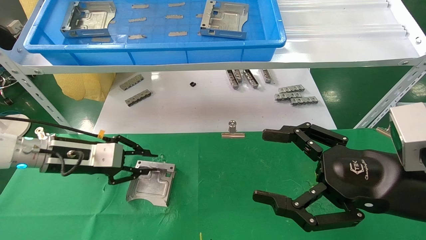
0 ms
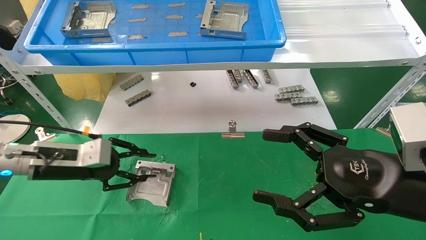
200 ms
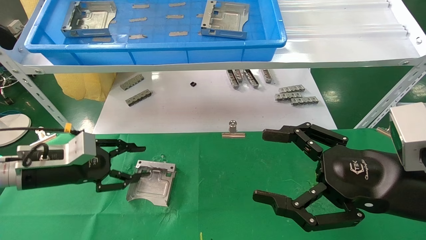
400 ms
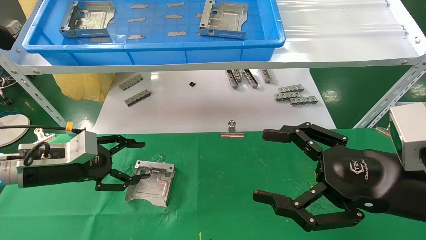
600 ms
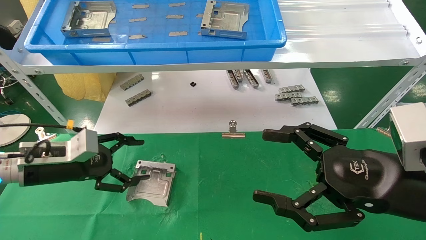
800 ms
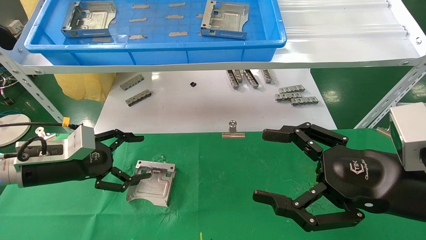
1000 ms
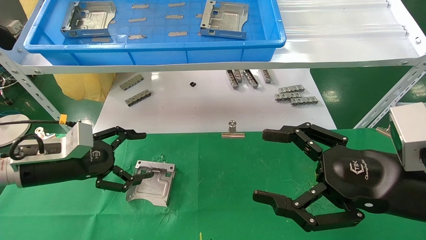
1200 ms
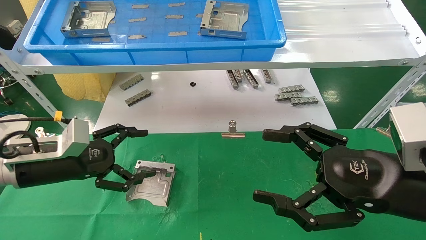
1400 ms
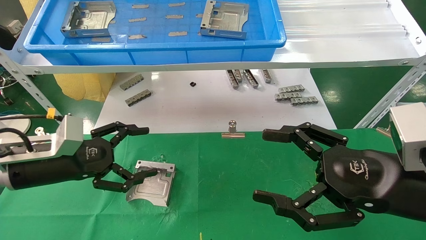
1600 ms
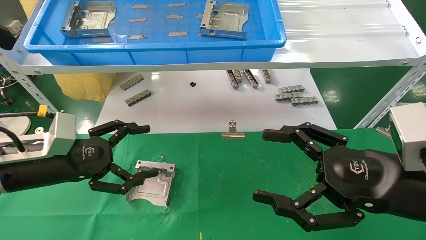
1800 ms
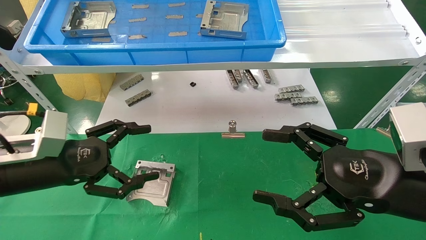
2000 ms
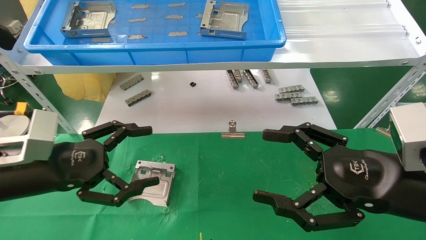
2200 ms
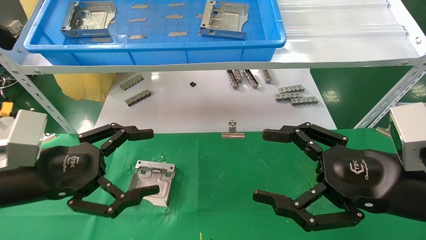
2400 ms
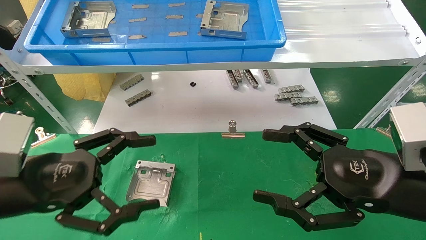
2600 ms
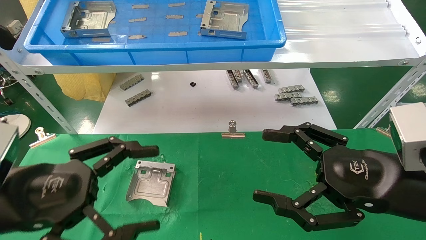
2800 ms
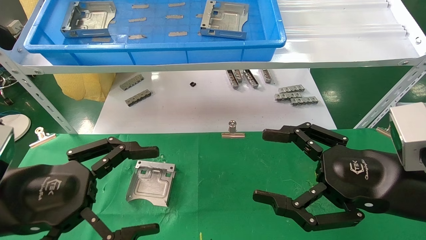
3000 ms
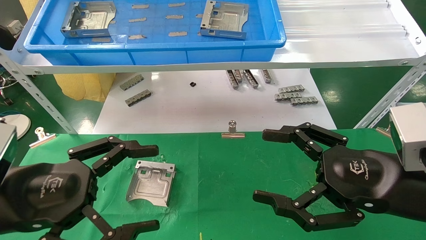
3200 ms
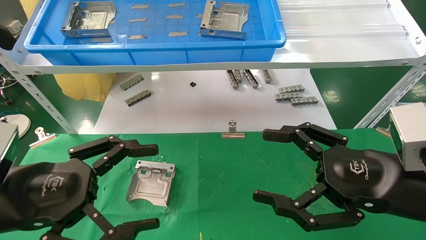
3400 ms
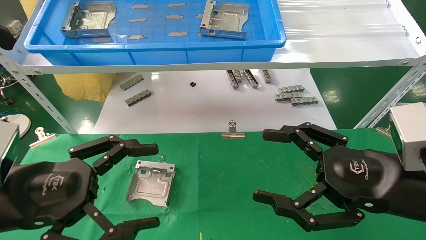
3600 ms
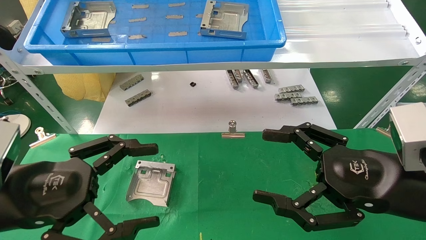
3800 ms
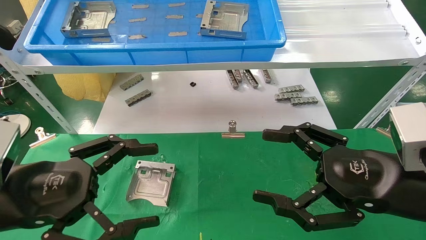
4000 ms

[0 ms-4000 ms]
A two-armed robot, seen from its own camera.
Task of the whole recording: use the mechanical arm to pick up the parts and place them on the table.
0 ms to 1400 ms: The left gripper opens up.
1400 ms to 2600 ms: The left gripper shifts roughly 10 cm backward.
2600 ms to 4000 ms: The grippers make only small movements.
